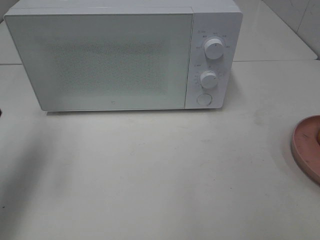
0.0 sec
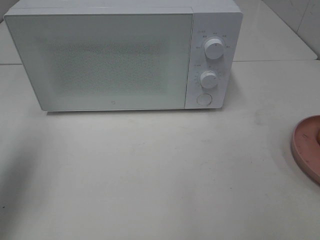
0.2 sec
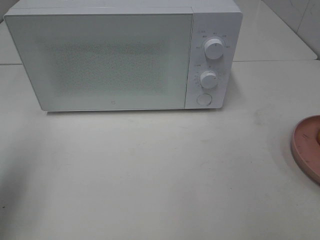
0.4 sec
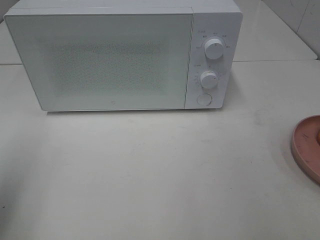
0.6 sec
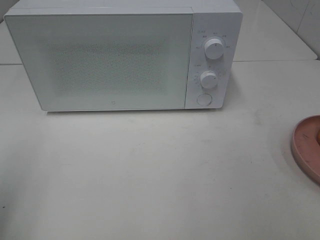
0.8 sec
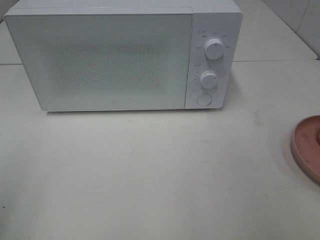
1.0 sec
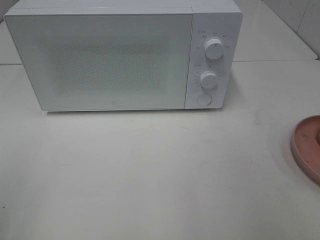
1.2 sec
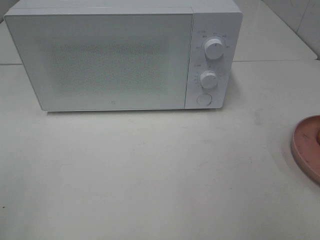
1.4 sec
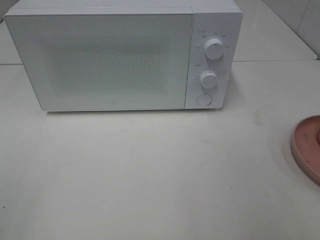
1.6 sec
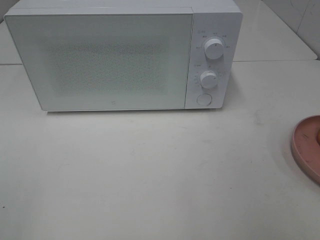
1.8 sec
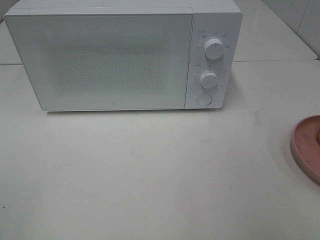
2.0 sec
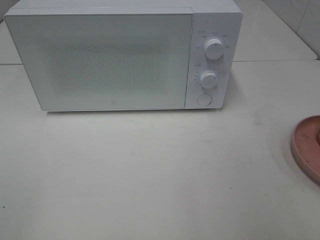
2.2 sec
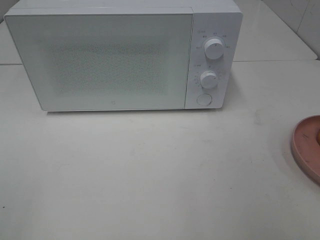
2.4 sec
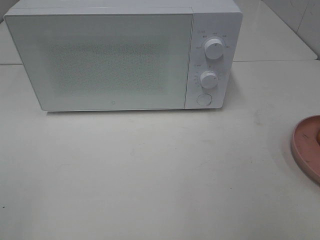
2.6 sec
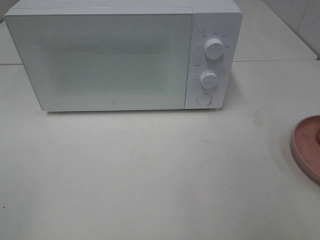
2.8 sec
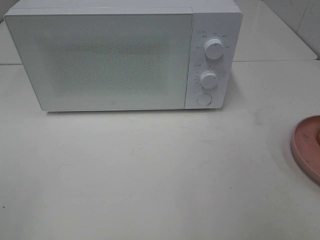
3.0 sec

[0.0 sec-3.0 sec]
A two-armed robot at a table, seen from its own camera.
Task of the whole recording: Heat the burger.
0.0 sec to 1.6 sec: The left gripper goes roughly 25 cm backward.
1.6 sec to 3.0 sec: Neither gripper changes place.

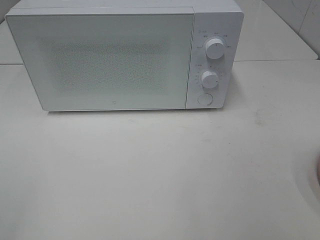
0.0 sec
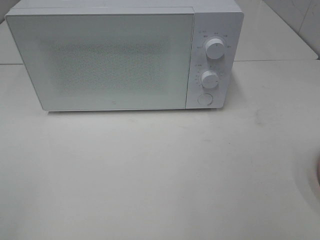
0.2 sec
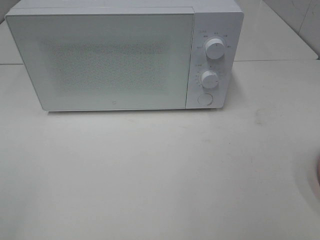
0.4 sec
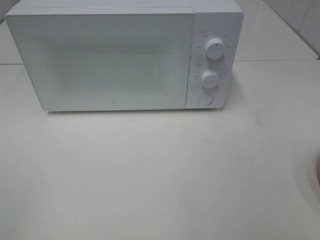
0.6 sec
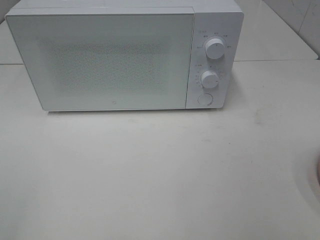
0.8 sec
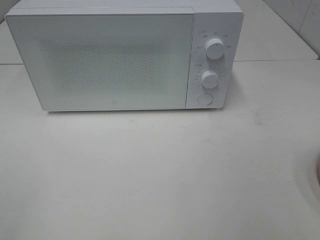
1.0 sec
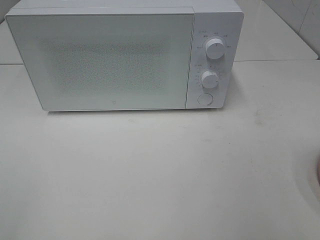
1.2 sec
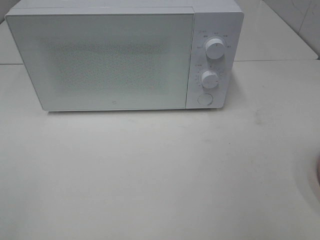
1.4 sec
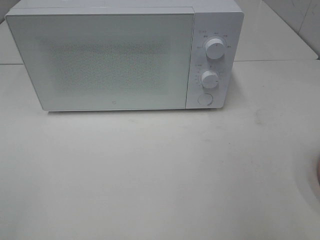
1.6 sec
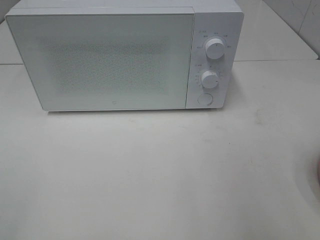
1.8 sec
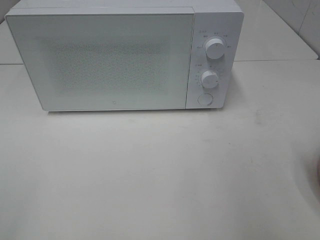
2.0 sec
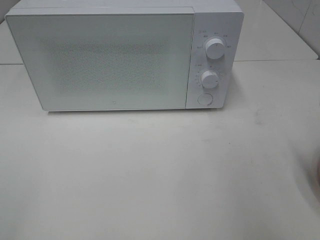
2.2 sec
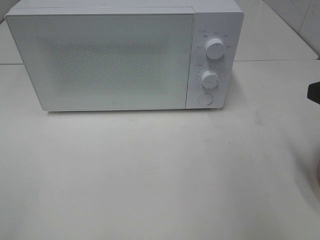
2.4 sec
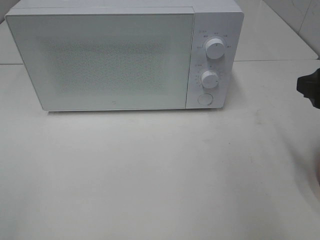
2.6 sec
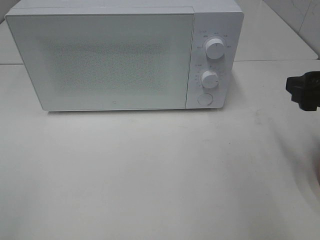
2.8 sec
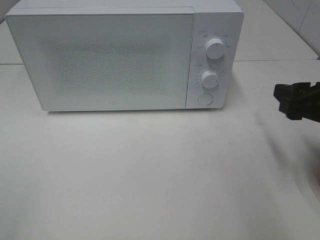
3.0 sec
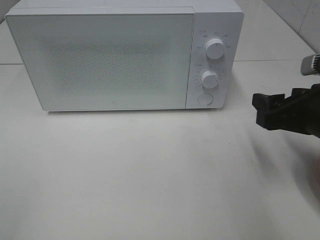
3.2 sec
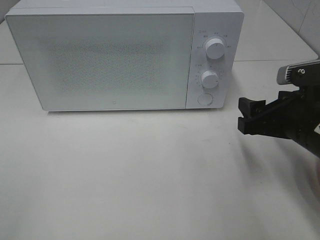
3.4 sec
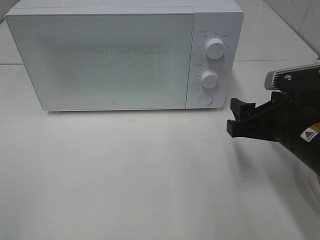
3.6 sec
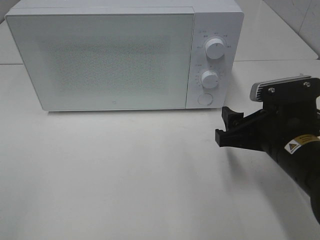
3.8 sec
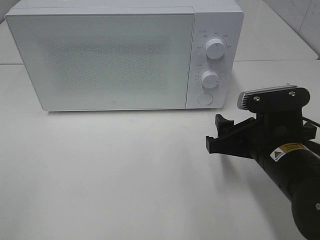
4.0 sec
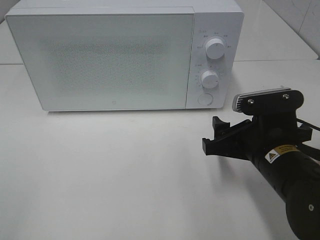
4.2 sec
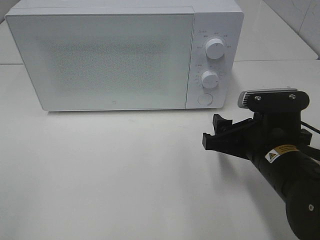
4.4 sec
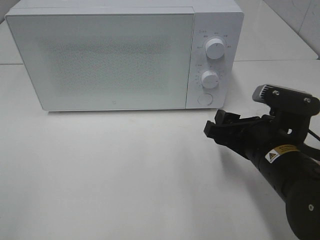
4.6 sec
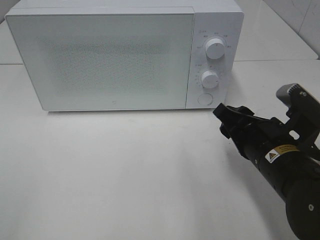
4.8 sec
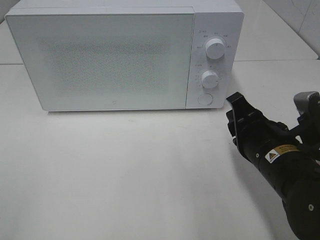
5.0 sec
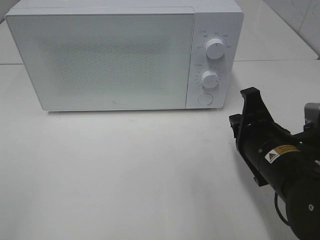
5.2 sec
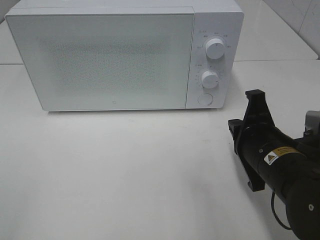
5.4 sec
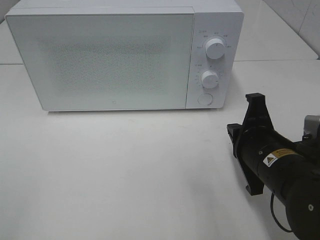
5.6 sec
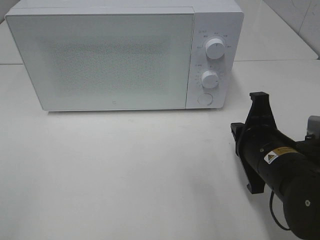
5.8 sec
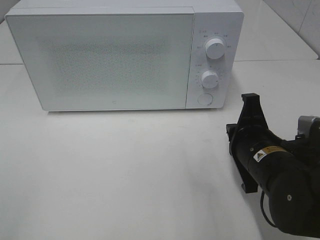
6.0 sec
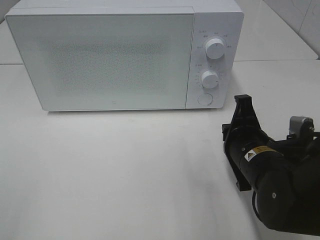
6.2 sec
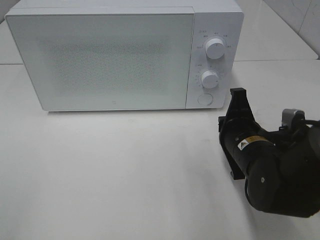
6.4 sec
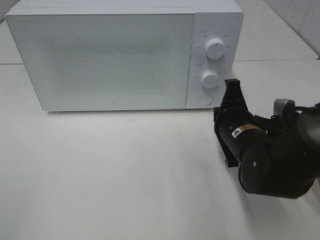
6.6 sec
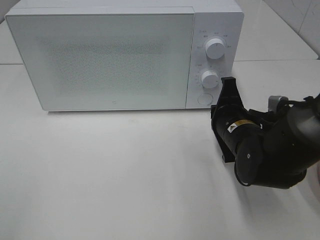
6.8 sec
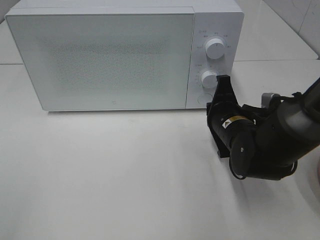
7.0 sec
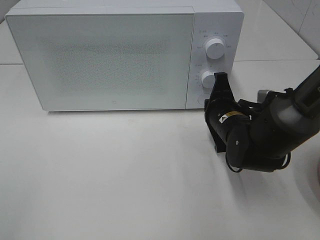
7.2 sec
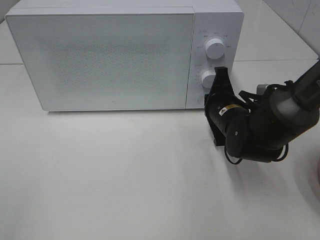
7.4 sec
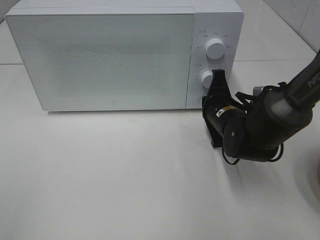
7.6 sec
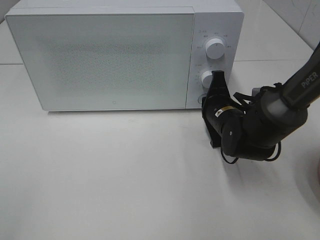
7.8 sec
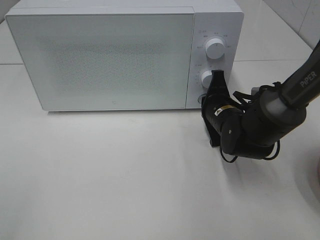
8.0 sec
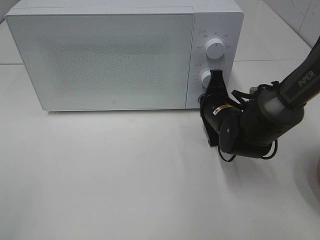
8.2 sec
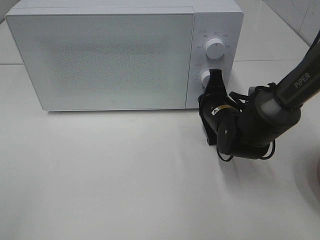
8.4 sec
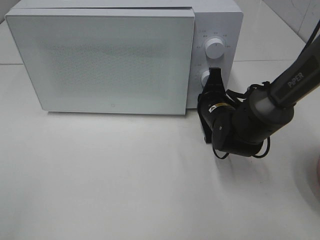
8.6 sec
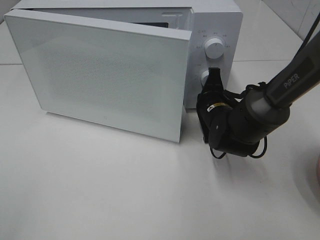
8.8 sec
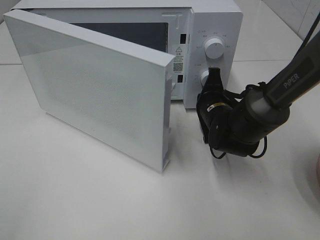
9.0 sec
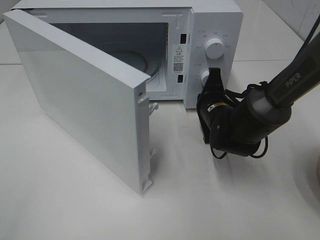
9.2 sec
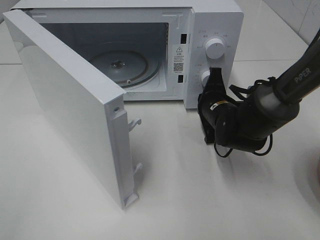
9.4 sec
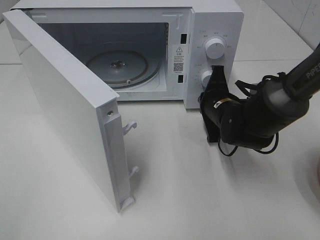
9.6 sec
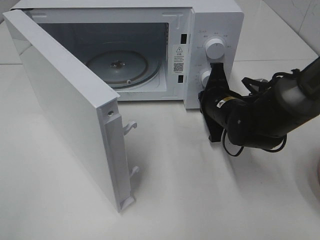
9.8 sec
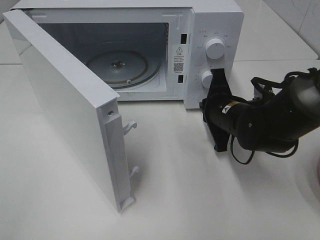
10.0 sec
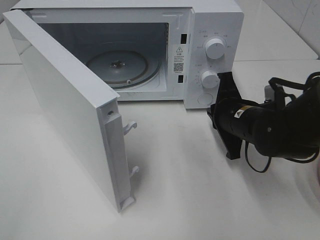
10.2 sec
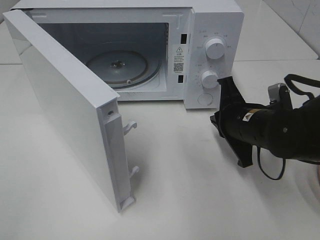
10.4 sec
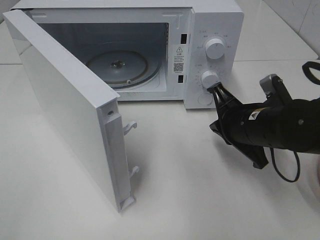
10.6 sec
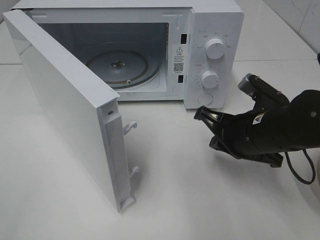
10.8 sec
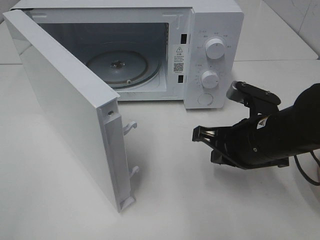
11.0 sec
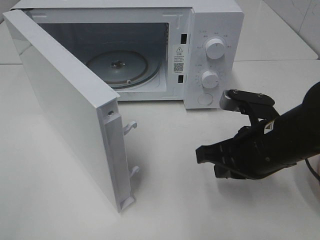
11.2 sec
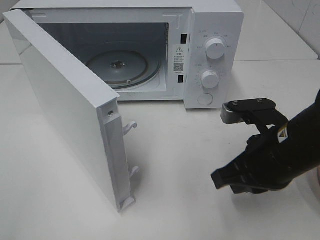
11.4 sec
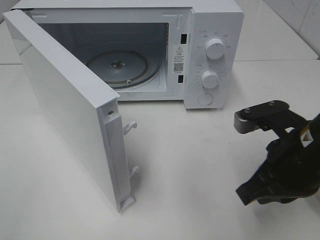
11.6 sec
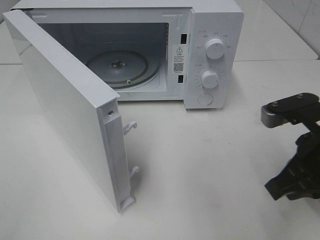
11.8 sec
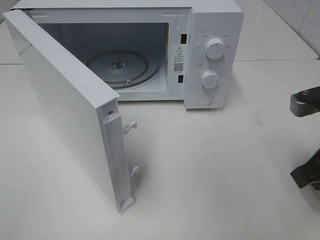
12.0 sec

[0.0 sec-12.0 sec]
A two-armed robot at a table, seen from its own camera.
Task of the whole recording: Heat the burger.
Step, 0.0 sec to 9.8 sec: Right hand: press the switch.
1.6 sec to 3.0 sec: The right gripper shifts approximately 15 cm forward and downward.
3.0 sec to 4.4 sec: The right gripper goes approximately 10 cm to the left and downward.
4.4 sec to 6.0 sec: The right gripper closes.
6.0 sec to 7.6 sec: The right gripper heads forward, covering some 10 cm.
9.0 sec to 10.4 sec: The right gripper moves backward, about 10 cm.
10.4 sec to 12.0 sec: The right gripper goes approximately 15 cm backward, upward and to the right.

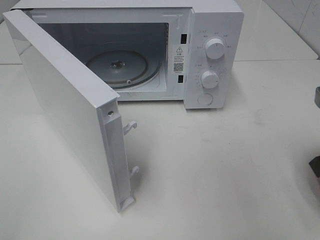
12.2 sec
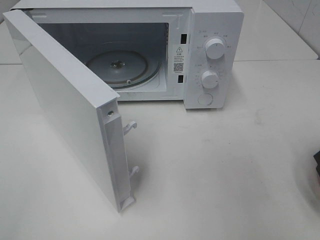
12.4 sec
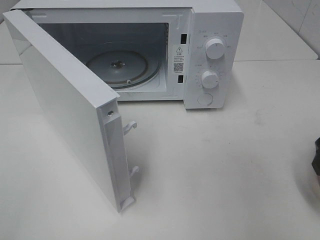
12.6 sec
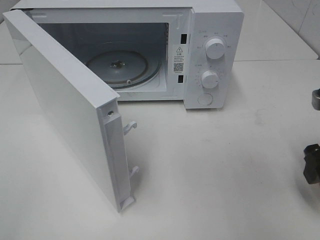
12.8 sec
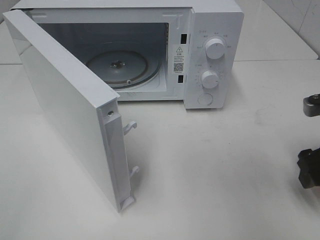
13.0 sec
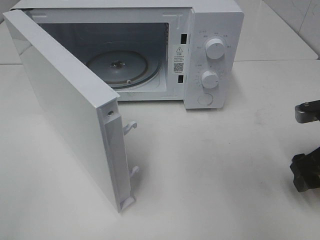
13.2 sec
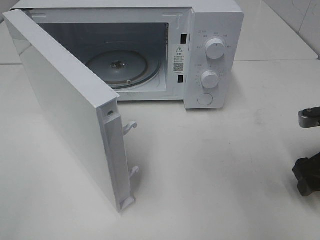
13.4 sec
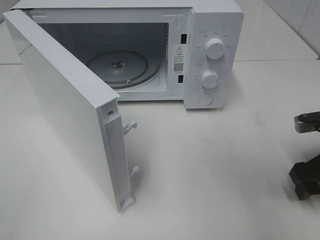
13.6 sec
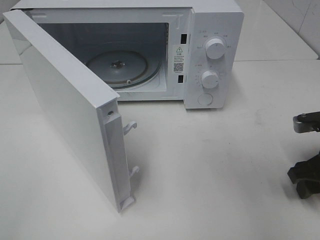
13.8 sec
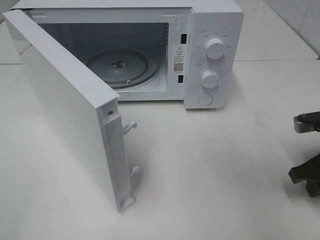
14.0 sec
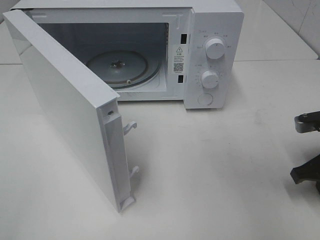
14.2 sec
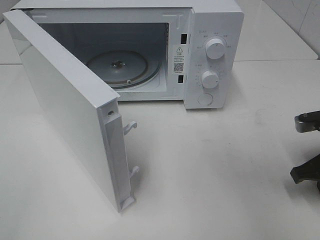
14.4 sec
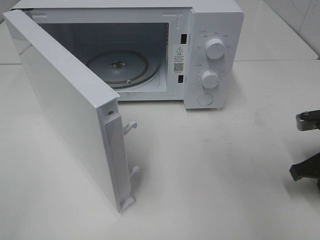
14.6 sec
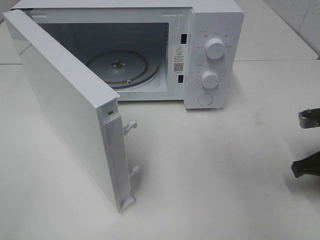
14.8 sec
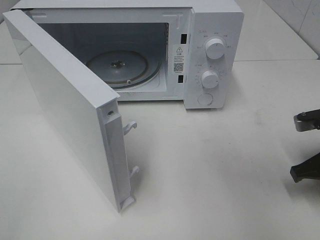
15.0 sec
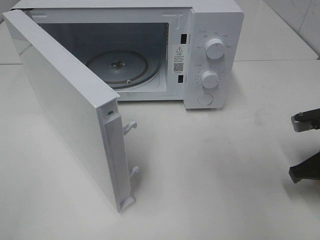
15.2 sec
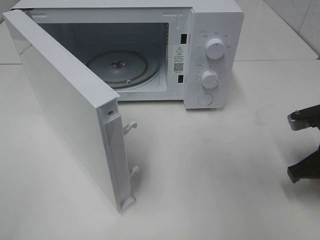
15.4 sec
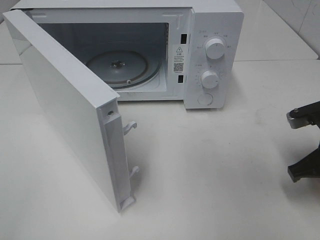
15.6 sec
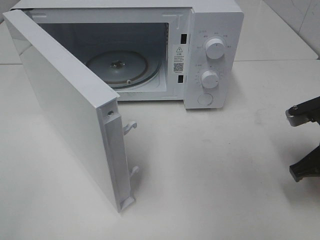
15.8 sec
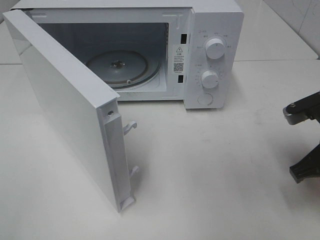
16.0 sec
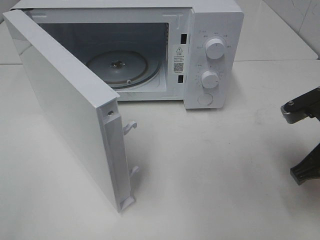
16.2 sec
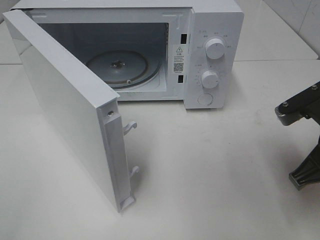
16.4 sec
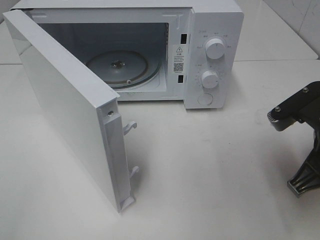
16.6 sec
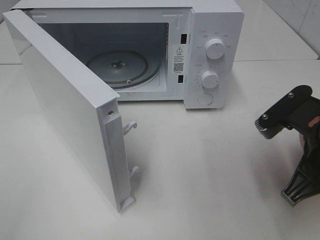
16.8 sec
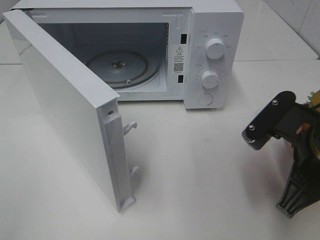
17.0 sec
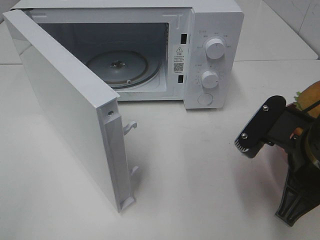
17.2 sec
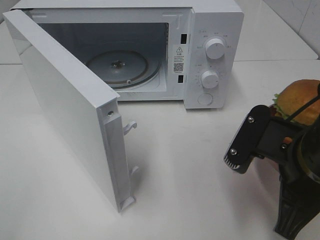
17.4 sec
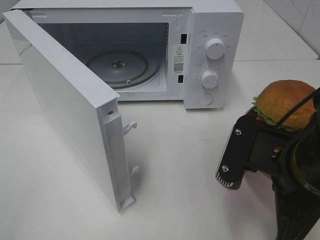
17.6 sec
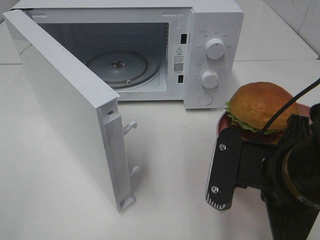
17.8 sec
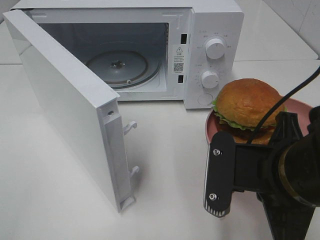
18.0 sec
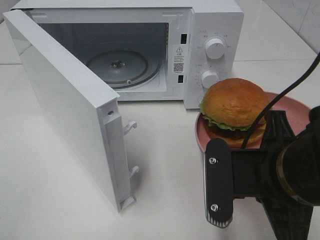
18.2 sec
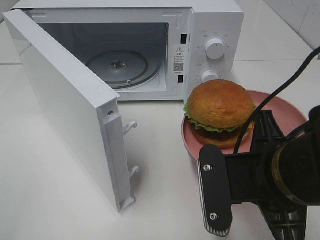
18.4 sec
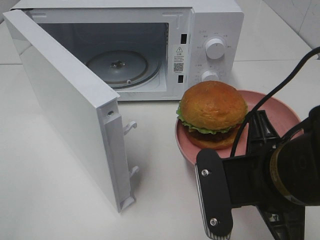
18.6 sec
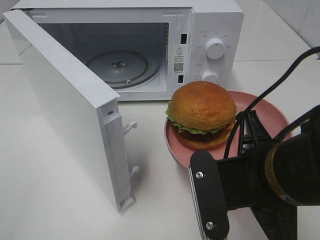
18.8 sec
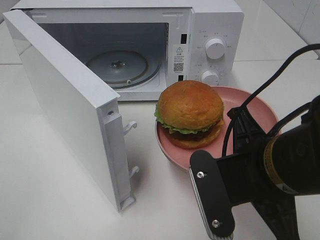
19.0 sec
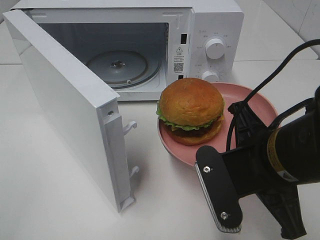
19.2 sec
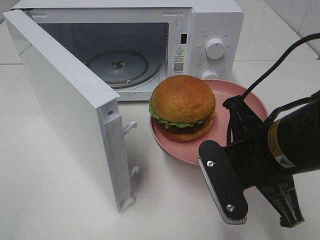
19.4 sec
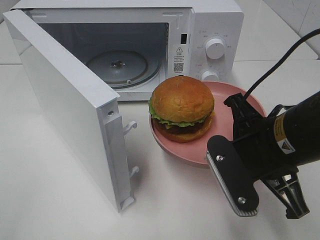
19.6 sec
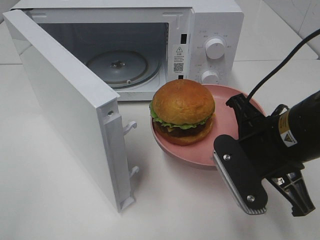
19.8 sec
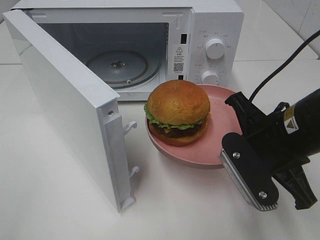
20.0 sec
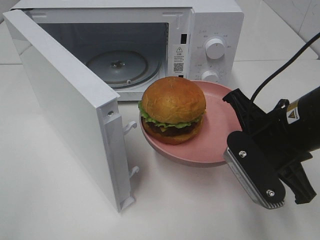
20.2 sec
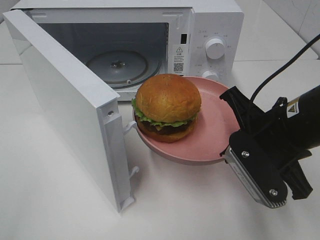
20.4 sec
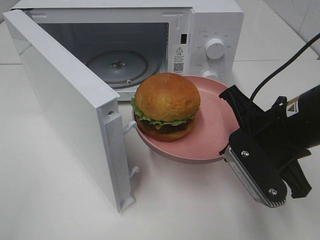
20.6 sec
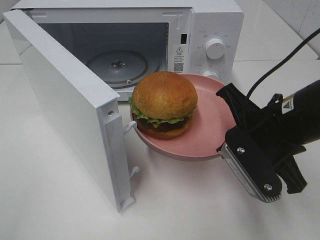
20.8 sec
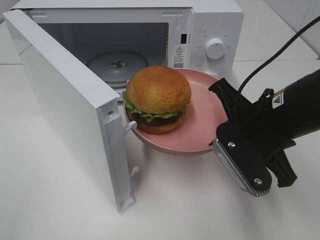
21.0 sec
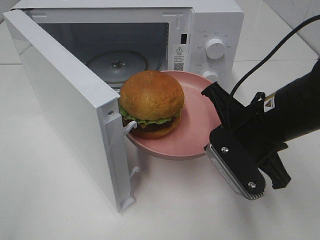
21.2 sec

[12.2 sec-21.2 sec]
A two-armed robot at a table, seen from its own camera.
Task of the whole recording: Heat the burger.
Step, 12.2 sec to 14.6 sec: Right hand: grab the plate with the hamburger.
12.2 sec to 13.8 sec: The right gripper goes some 10 cm downward and forward, and opens.
13.8 sec to 15.2 sec: The right gripper closes its fingers.
15.2 sec to 16.6 sec: The right gripper travels to the left and upward by roughly 10 cm.
16.6 sec to 18.2 sec: The right gripper moves to the left and backward, some 10 cm.
18.2 sec to 19.8 sec: The right gripper shifts approximately 5 cm forward.
19.8 sec to 21.2 sec: The grippers stay close to where they were, moving slightly.
